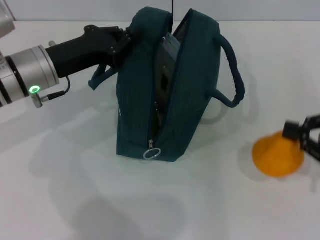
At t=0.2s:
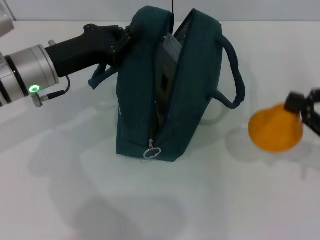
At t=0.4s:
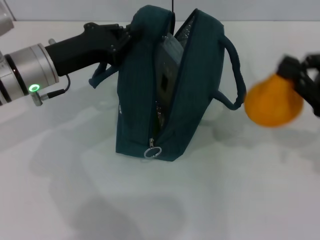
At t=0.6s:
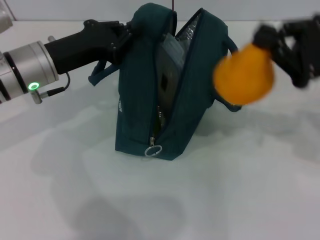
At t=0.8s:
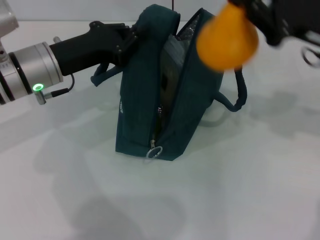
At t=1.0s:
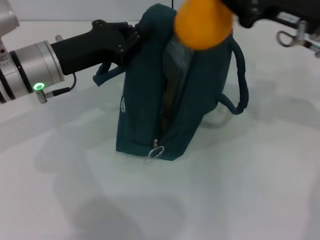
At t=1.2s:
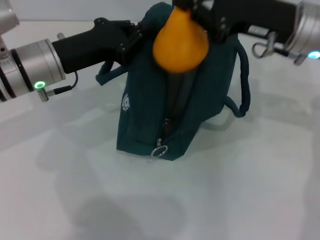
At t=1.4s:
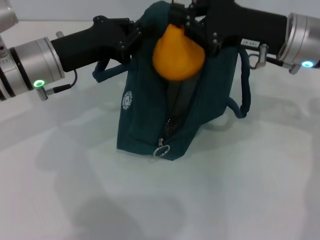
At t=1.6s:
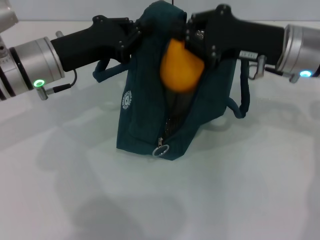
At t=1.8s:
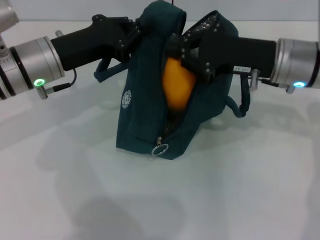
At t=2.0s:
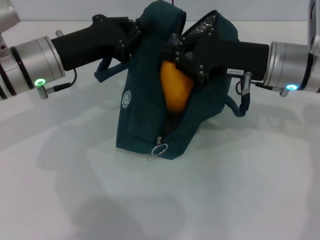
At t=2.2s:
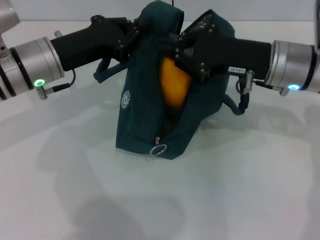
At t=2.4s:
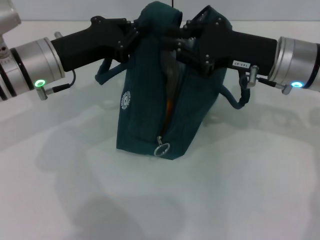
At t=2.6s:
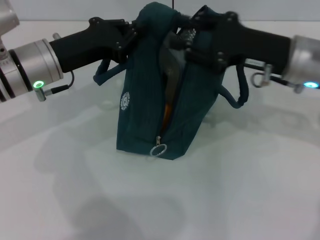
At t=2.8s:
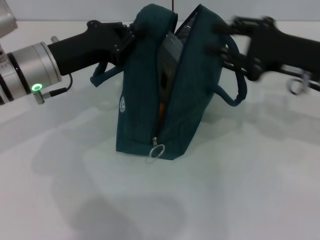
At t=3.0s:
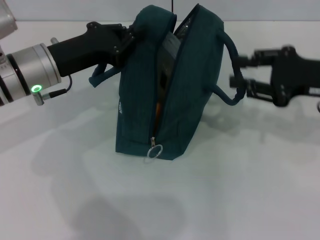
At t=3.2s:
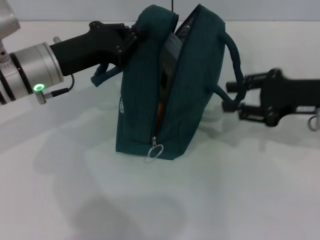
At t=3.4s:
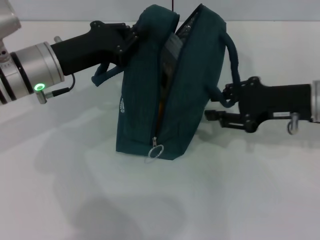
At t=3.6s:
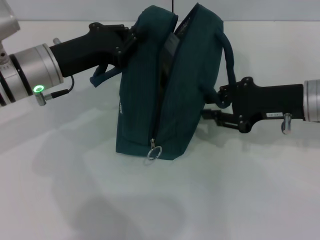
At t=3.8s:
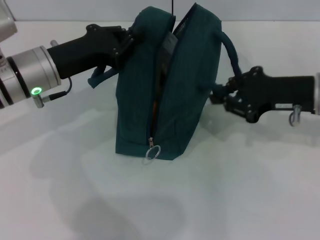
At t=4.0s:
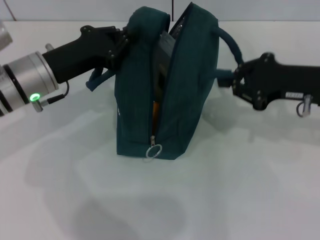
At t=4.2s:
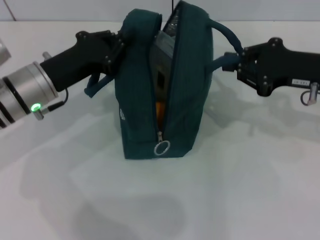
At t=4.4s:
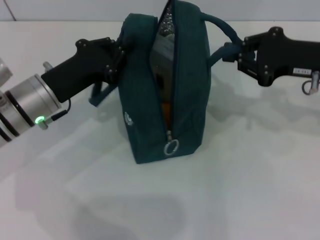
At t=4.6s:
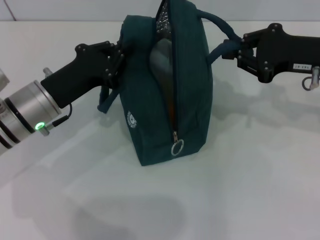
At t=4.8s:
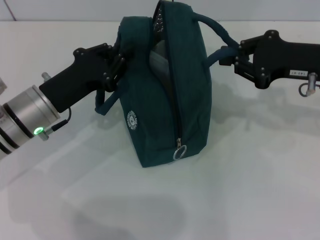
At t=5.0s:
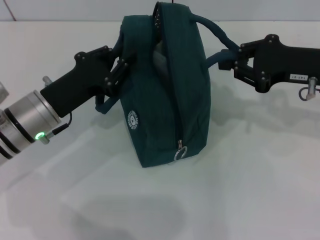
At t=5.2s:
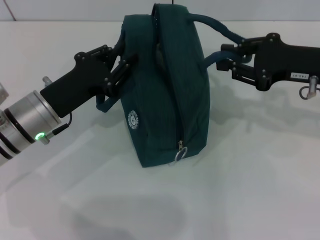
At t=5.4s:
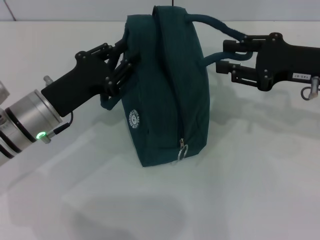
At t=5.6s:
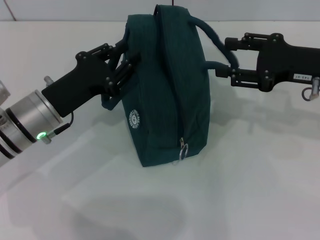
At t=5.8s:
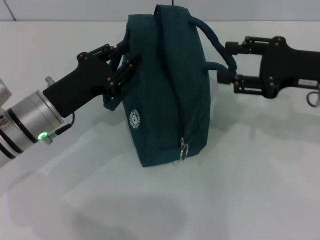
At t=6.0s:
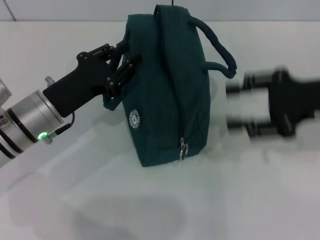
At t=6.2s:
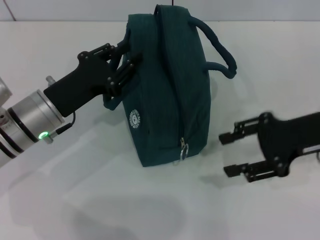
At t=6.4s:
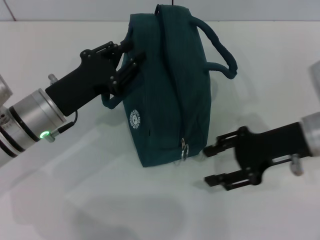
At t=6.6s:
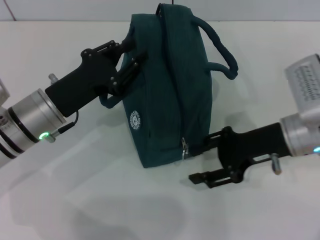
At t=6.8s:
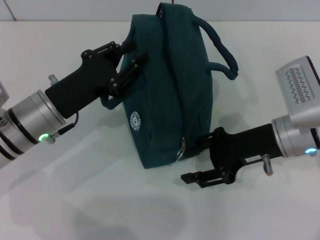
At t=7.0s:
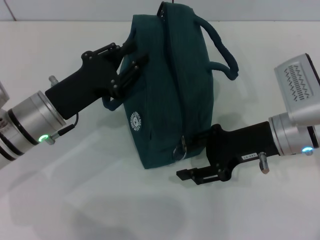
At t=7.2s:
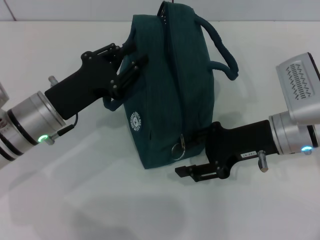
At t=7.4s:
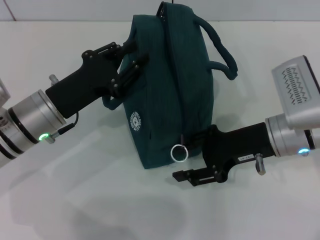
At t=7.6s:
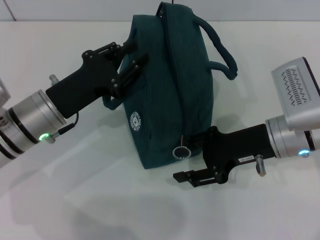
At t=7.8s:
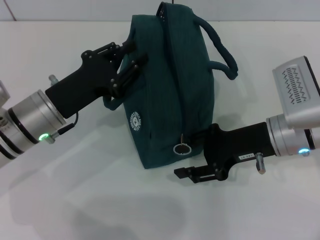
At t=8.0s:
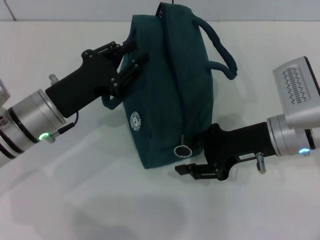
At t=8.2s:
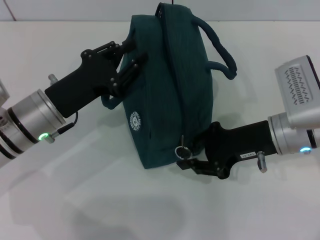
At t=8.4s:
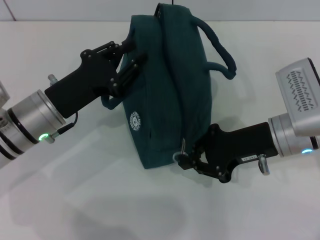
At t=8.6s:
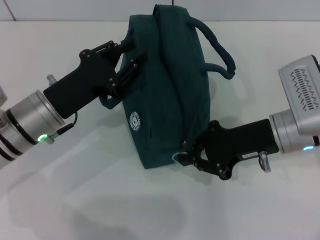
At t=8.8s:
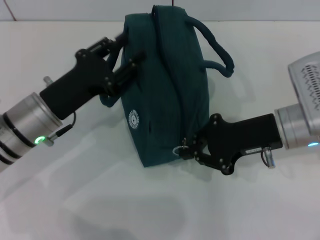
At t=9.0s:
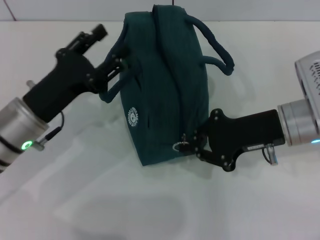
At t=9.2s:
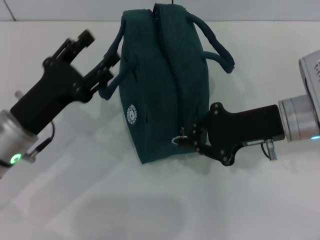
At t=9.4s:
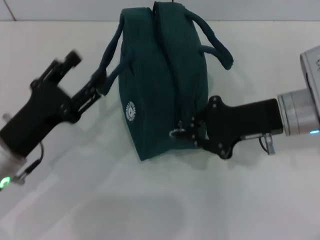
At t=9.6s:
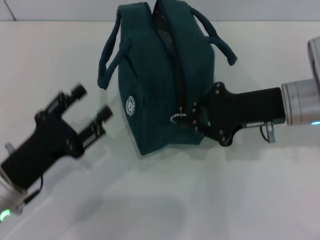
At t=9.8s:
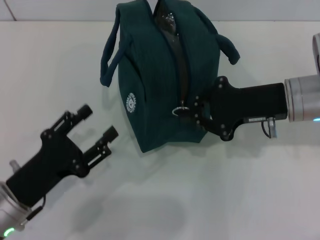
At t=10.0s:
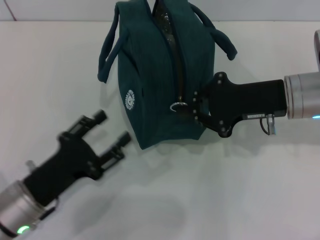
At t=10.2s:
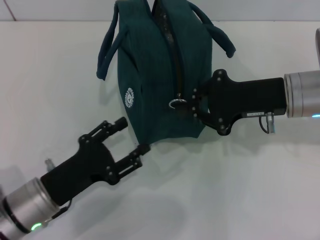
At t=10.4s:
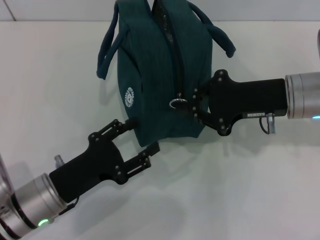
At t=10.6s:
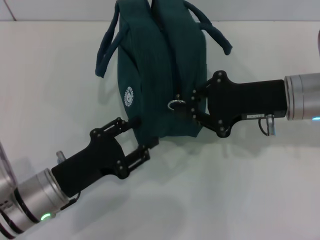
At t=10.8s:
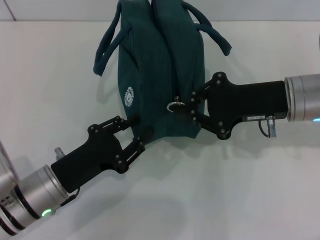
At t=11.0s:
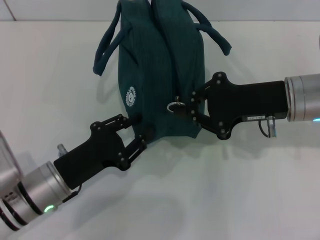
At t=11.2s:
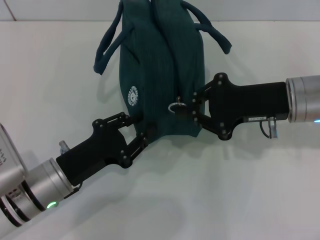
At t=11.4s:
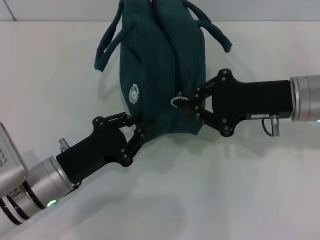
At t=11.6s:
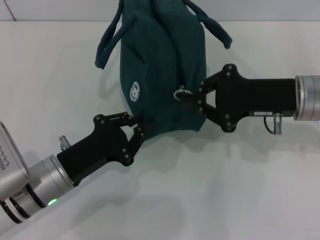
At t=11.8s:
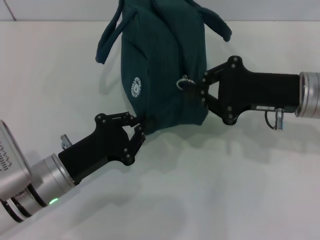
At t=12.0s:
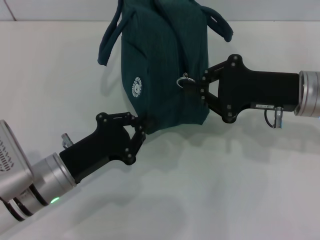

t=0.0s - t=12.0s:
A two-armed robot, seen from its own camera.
Step, t=2.8s - t=5.4s: Hold the lunch bag with your right hand.
Step, t=5.6s - t=9.8s: Hold the lunch bag with your left hand.
t=0.0s - t=1.6s: The right gripper goes some 20 cm to the left, forward and upward.
t=1.6s - t=3.0s: The right gripper shifts some 10 cm to the right, and opens.
t=3.0s - t=4.4s: The right gripper closes.
t=4.4s - t=6.0s: The right gripper opens up.
t=6.0s - t=7.6s: The right gripper is displaced to the left and downward by approximately 10 cm.
t=7.6s - t=9.0s: The right gripper closes its fingers.
t=9.0s - t=10.4s: The left gripper moves backward and downward, about 10 cm.
t=10.4s - t=12.0s: The left gripper closes up.

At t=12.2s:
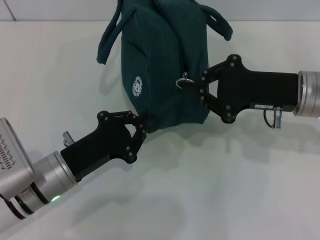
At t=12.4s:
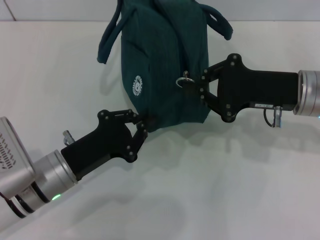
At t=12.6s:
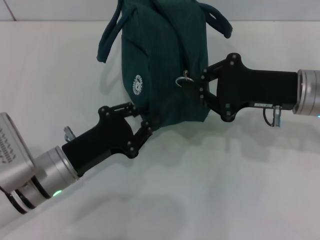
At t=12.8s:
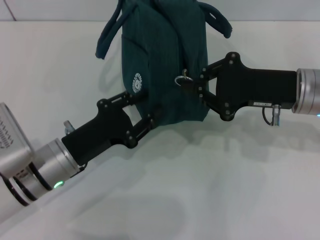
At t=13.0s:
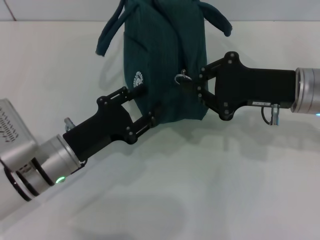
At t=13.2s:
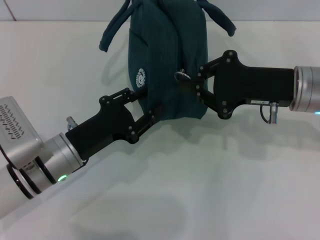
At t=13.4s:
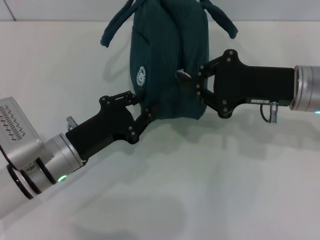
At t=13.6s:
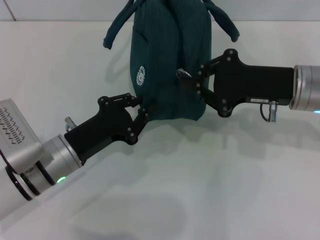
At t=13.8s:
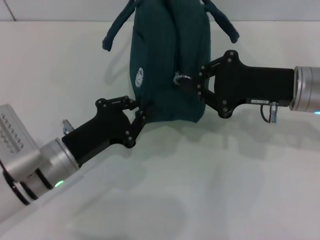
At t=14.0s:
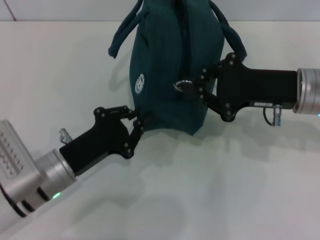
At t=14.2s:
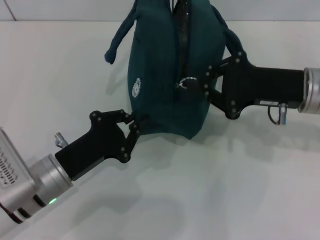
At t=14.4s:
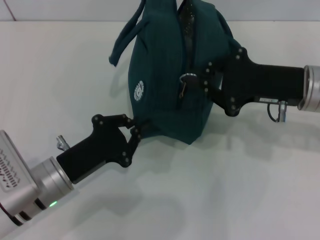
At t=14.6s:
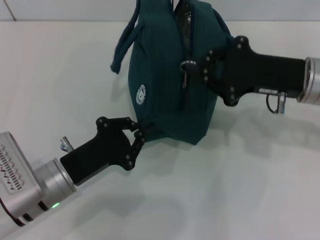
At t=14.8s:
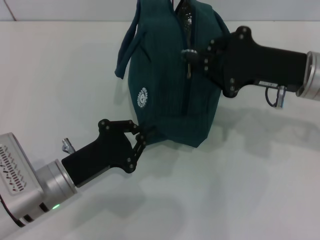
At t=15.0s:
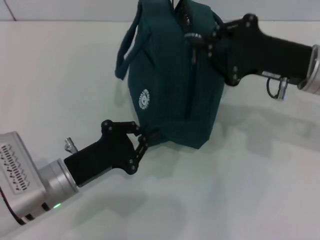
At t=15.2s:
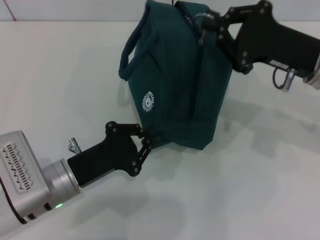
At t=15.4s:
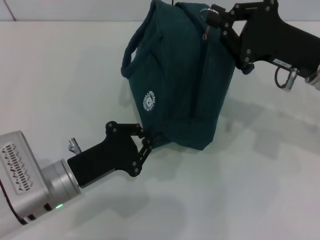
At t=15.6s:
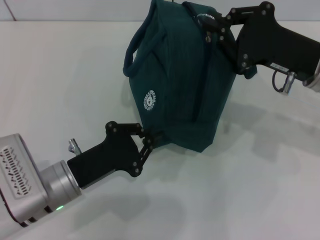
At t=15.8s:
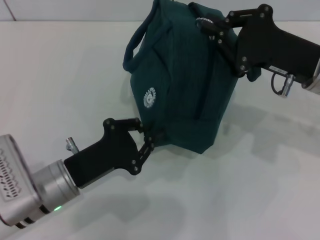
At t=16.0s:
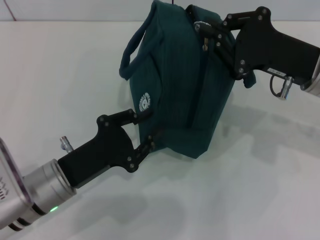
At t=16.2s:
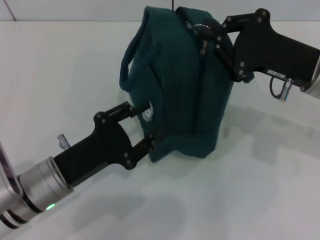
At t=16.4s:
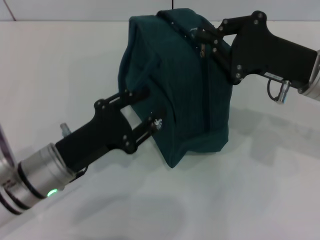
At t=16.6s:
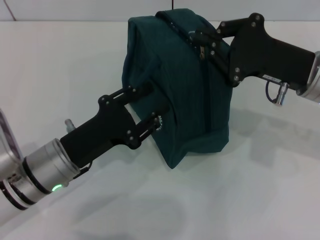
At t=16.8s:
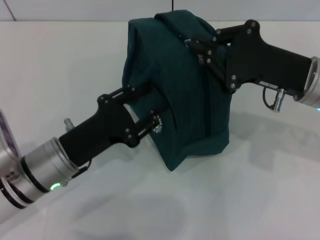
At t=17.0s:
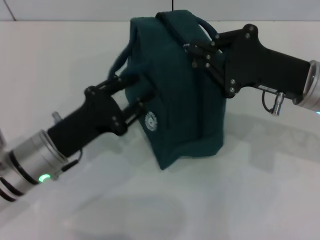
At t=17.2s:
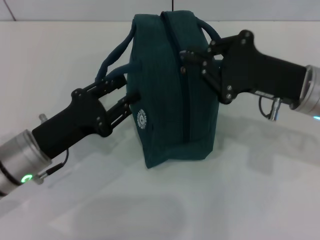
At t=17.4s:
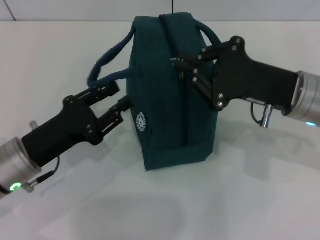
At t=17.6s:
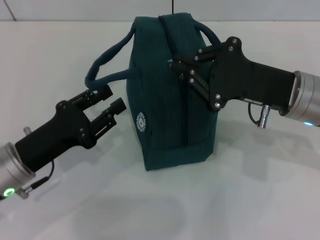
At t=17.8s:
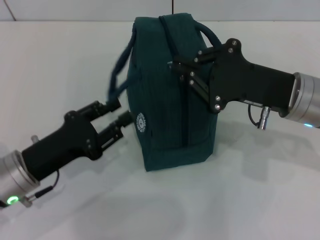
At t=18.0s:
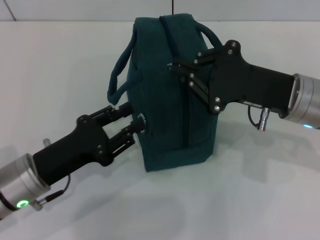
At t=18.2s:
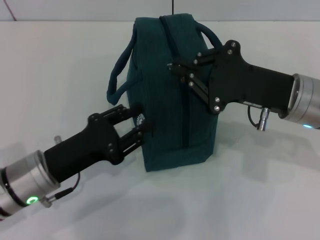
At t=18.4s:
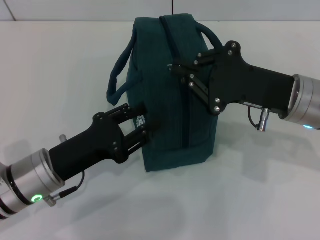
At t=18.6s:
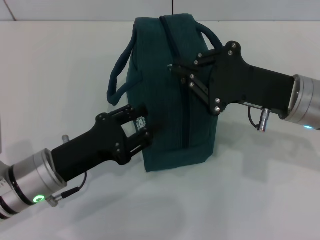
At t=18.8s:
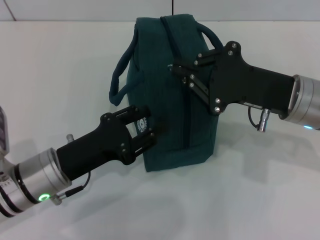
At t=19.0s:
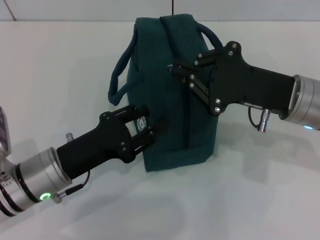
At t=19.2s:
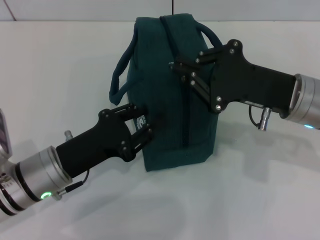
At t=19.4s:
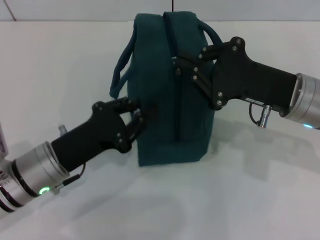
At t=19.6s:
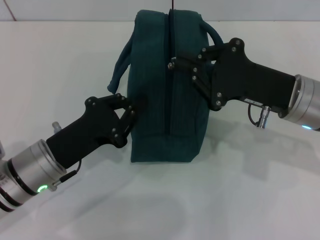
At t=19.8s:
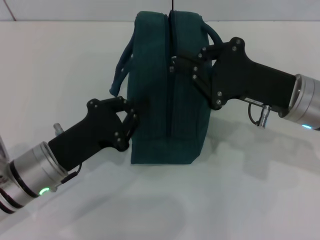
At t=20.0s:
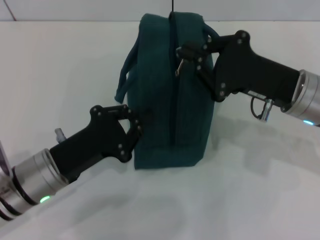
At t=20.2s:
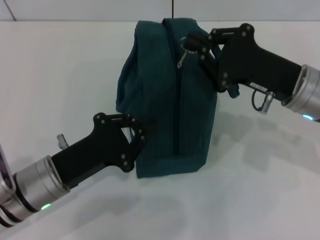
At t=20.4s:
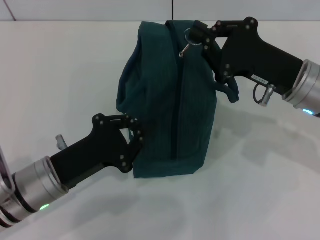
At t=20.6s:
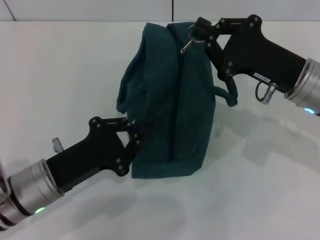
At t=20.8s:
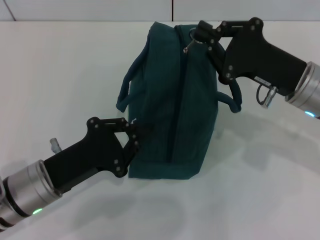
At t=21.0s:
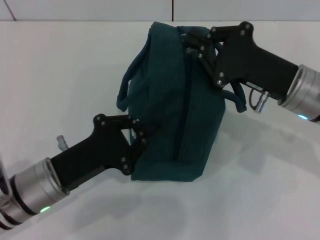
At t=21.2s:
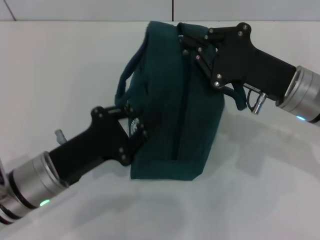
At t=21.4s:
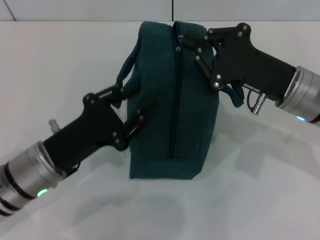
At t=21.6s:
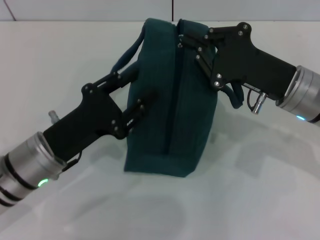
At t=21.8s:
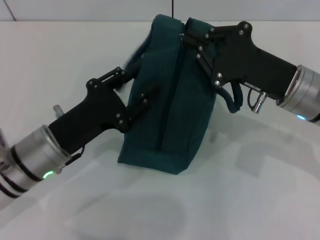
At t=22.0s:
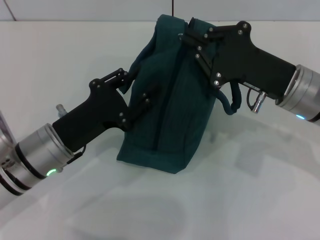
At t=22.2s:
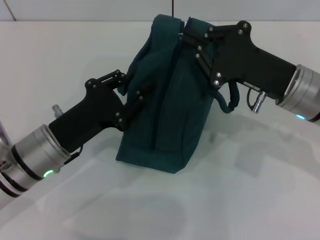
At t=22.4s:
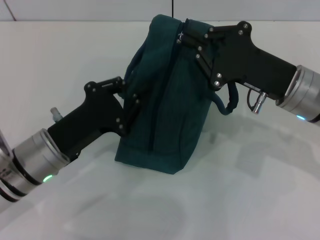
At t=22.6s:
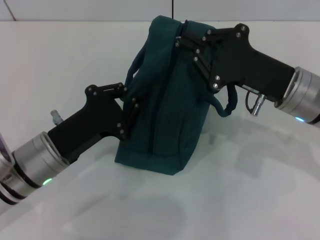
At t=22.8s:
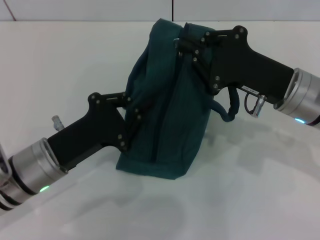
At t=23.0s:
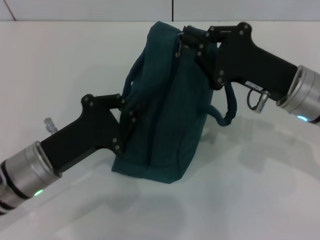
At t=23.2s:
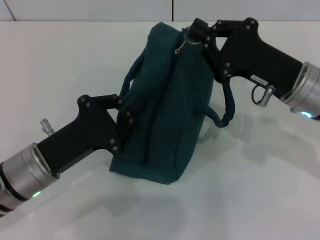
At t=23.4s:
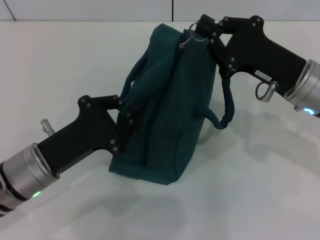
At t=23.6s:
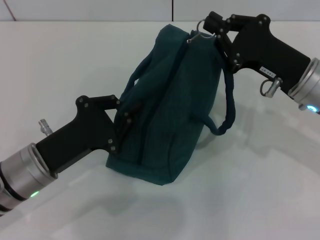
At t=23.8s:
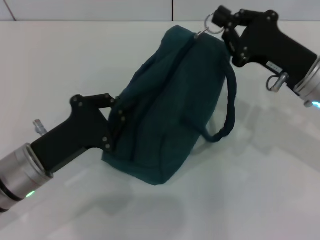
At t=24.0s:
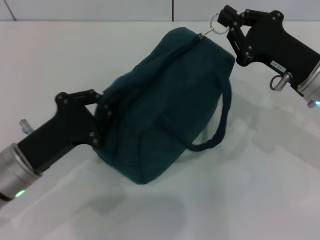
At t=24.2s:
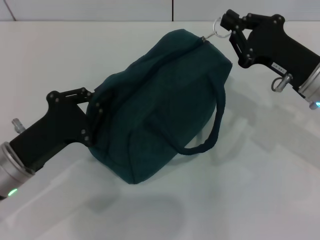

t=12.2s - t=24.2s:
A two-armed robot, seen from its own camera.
t=12.2s - t=13.8s: The left gripper opens, then closes once more.
t=15.2s - t=16.6s: The left gripper opens its fingers.
t=18.2s - t=19.8s: The left gripper closes up.
t=19.8s - t=22.6s: The grippers move only a little.
